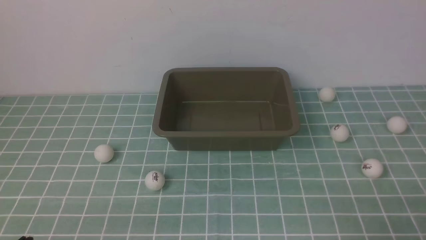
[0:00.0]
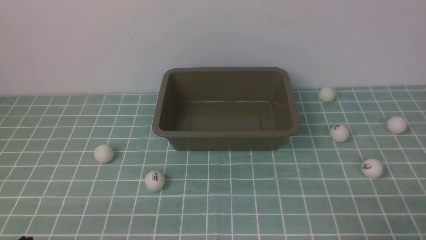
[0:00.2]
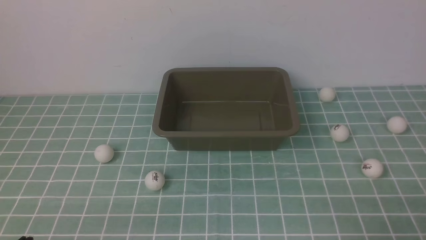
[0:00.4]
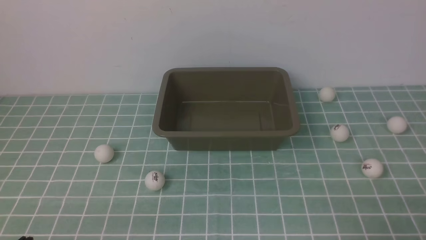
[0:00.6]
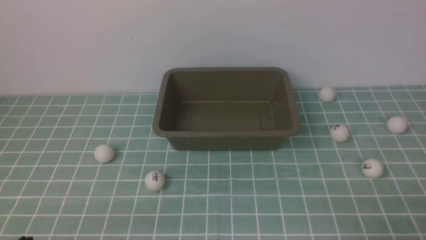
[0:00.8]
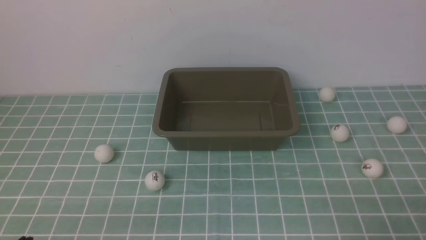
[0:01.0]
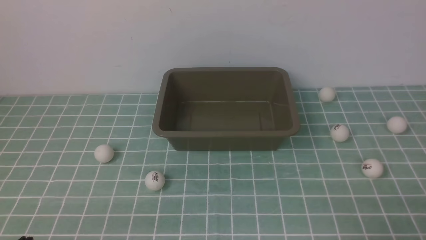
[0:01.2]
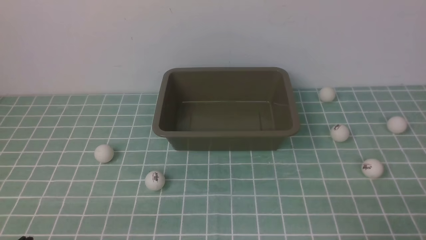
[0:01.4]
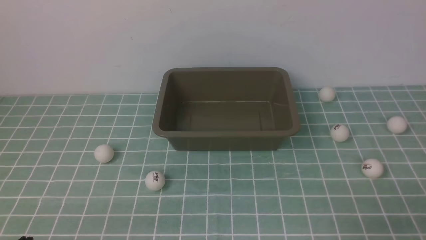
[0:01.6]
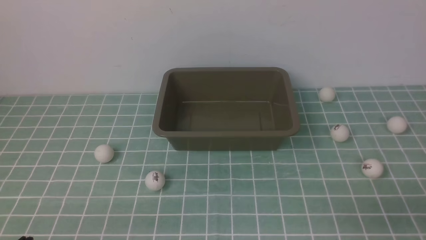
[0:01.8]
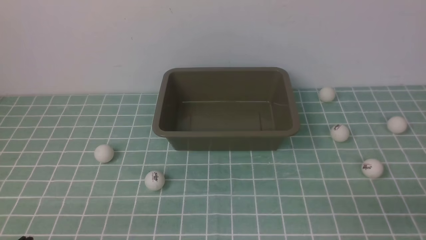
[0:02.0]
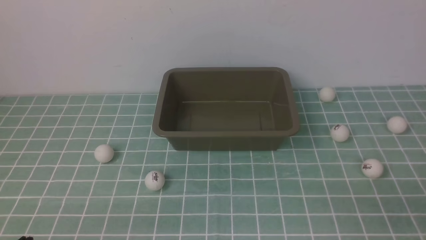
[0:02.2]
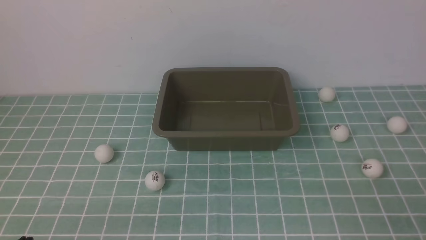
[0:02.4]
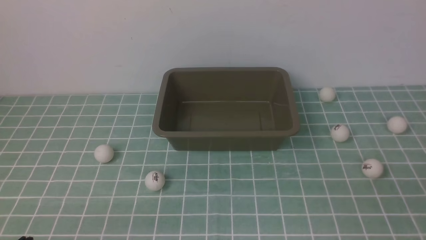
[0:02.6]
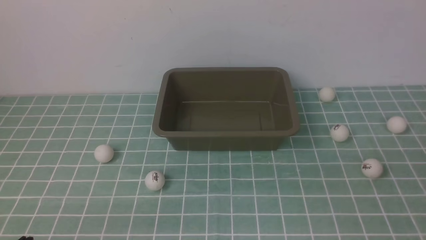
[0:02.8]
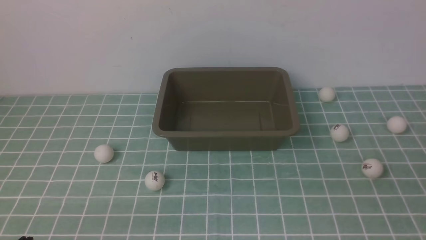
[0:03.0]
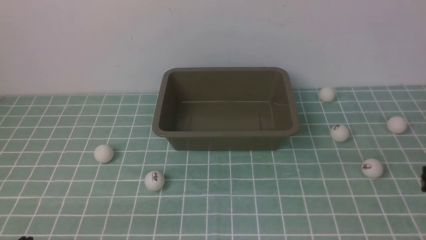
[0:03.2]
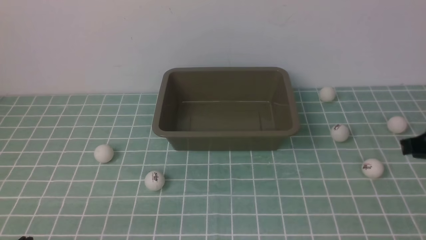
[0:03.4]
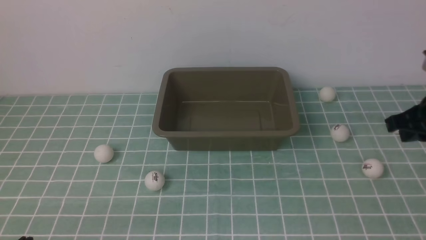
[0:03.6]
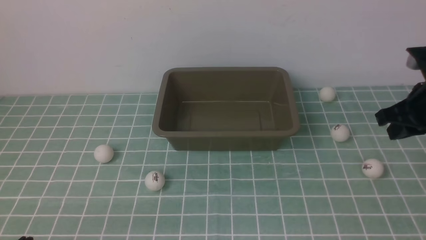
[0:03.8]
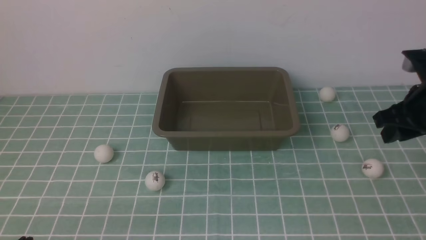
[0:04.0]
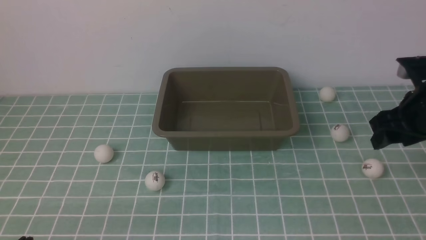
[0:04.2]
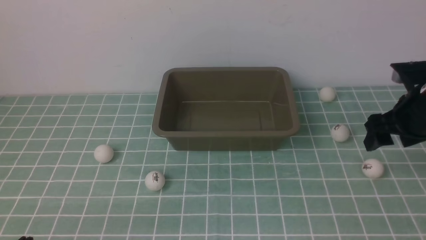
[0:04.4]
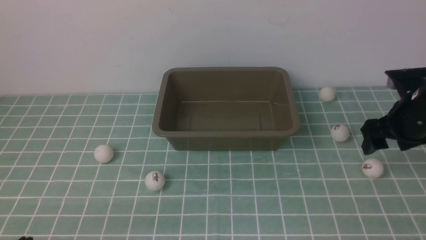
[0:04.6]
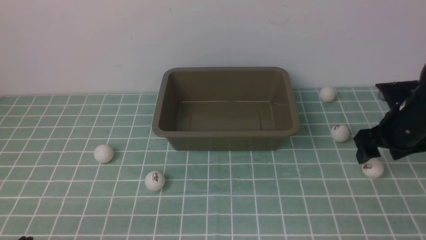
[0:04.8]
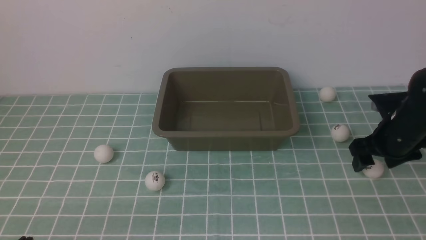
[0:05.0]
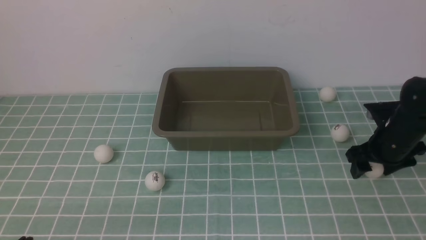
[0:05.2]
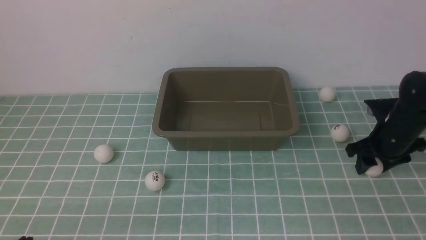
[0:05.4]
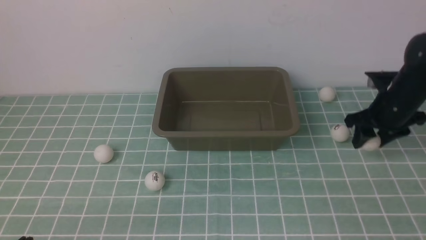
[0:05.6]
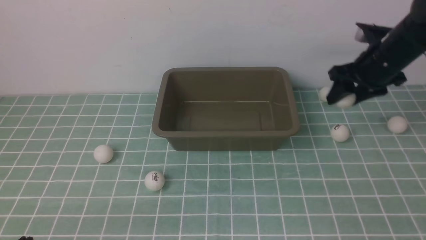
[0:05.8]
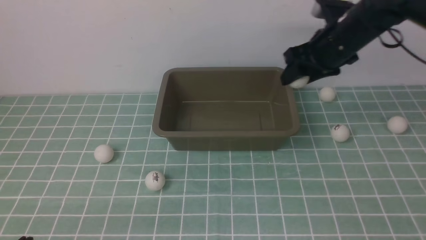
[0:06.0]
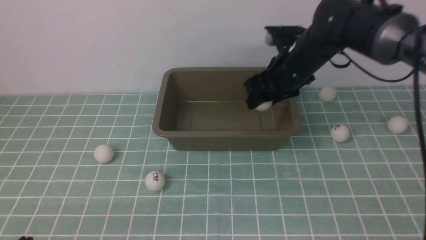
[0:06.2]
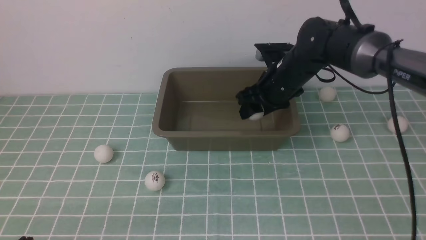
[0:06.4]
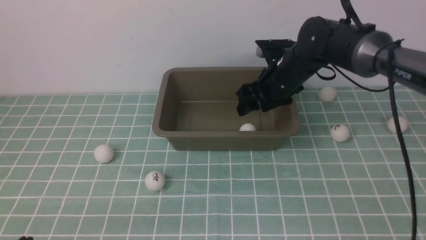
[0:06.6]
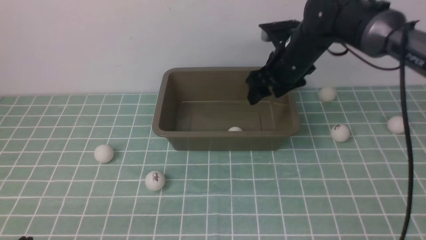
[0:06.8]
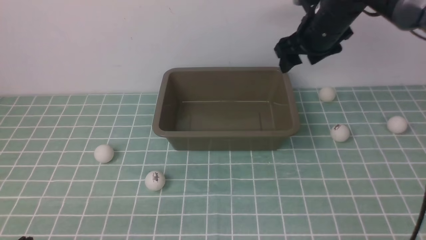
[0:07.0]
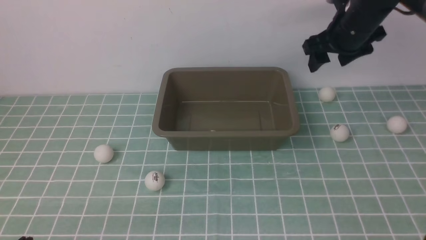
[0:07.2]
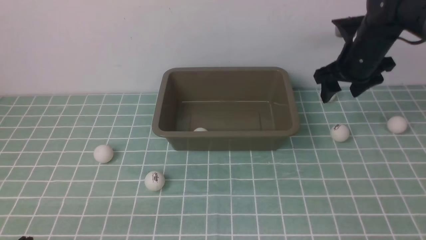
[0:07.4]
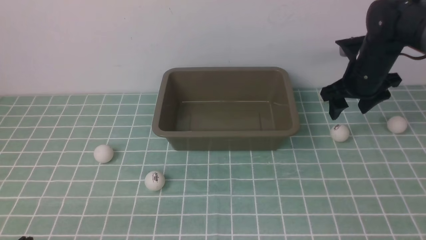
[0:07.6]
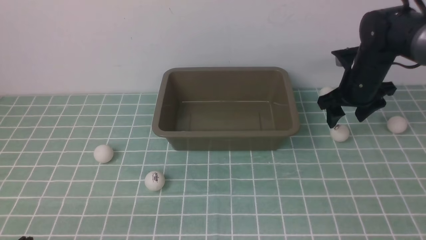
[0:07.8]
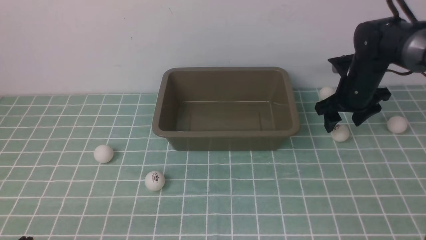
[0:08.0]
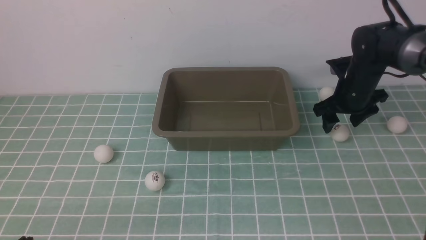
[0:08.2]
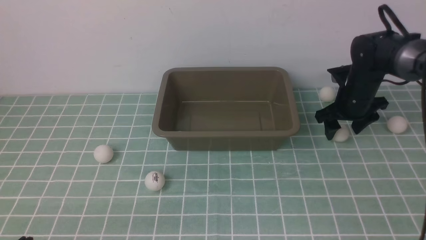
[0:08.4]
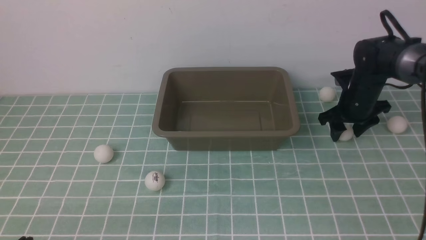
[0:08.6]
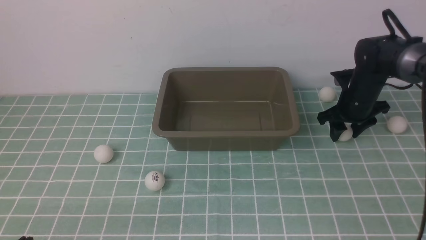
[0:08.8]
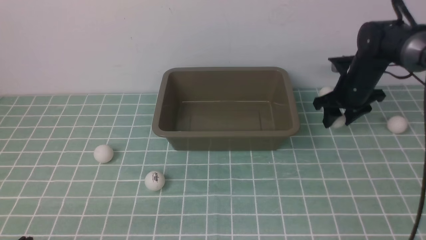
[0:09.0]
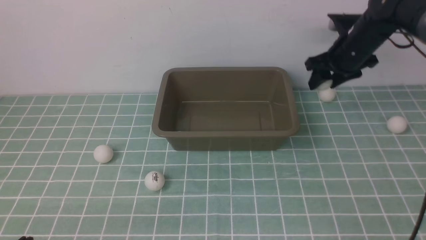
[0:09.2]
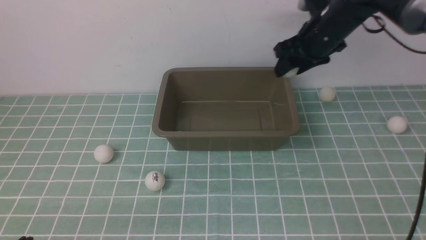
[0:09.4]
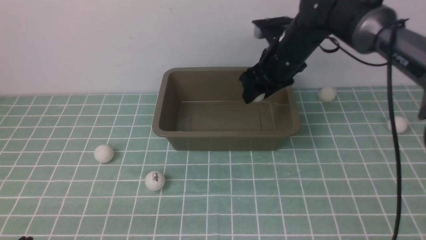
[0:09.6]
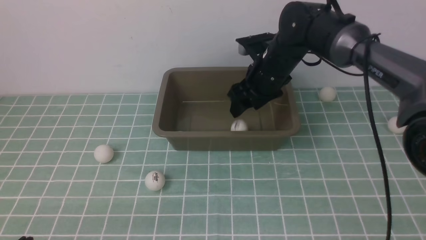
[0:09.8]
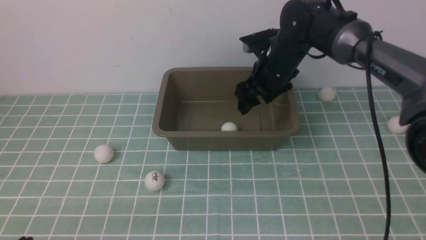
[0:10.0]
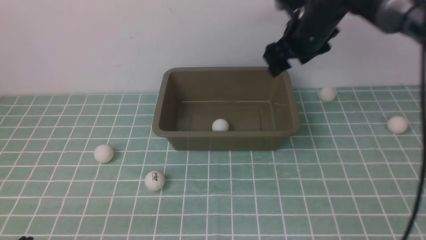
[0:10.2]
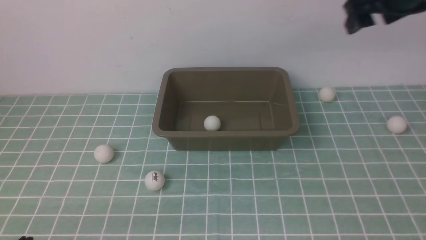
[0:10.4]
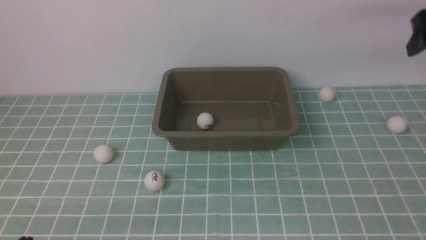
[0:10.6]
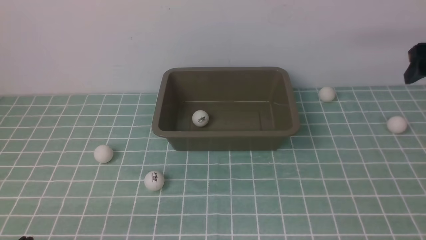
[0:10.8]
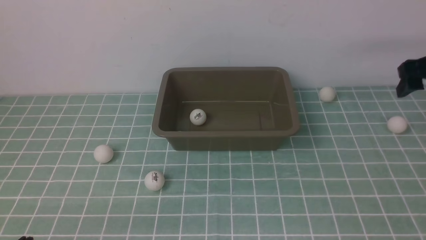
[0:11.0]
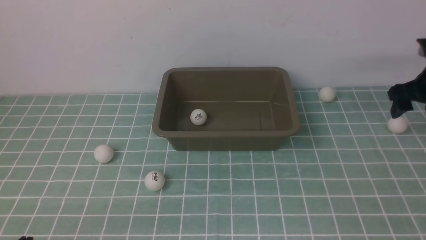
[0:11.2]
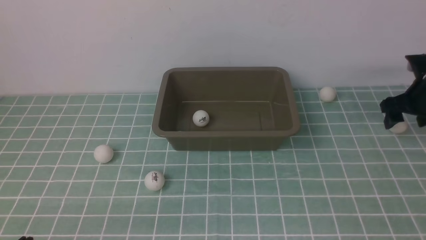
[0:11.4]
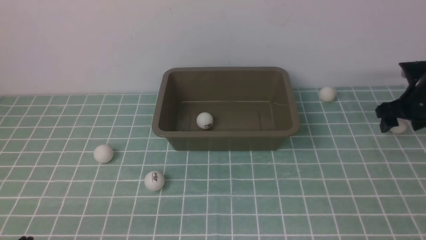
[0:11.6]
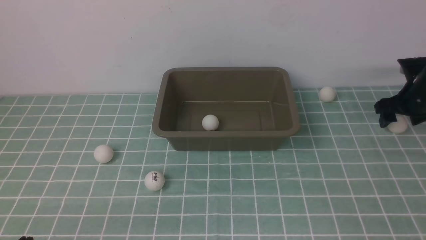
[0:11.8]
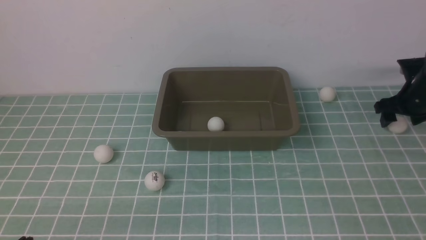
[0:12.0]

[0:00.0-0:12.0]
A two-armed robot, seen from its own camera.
Step, 0:00.0 to 0:05.4: use the right arm to clamp the table tennis ball closest to it.
Step, 0:05.6 to 0:06.6: use the right arm to put the table tennis ball into the box.
Step, 0:06.8 to 0:09.0: use the right arm to clamp the table tennis ball closest to it.
Step, 0:09.2 to 0:10.0: use the right arm to put the table tennis ball into the box.
0:03.0 to 0:04.4: The right gripper moves forward, about 25 cm, and opens its fingers.
0:04.4 to 0:06.0: The right gripper heads to the left and forward, covering some 15 cm, and travels downward and back again, about 10 cm each way.
0:06.0 to 0:07.6: The right gripper shifts by about 5 cm.
0:09.0 to 0:10.4: The right gripper goes approximately 20 cm upward, and opens its fingers.
0:10.4 to 0:12.0: The right gripper moves downward and to the right, approximately 25 cm.

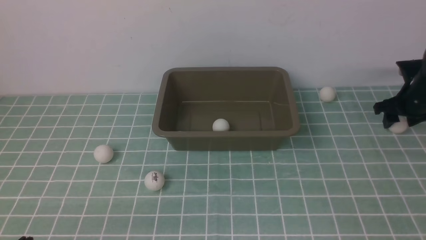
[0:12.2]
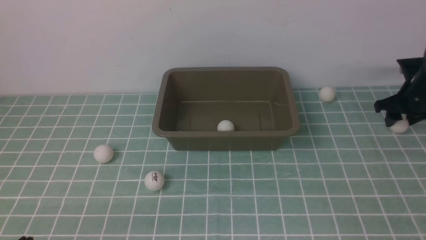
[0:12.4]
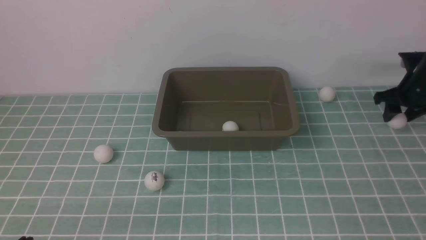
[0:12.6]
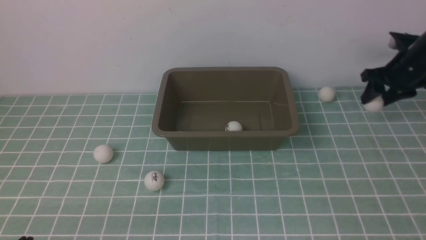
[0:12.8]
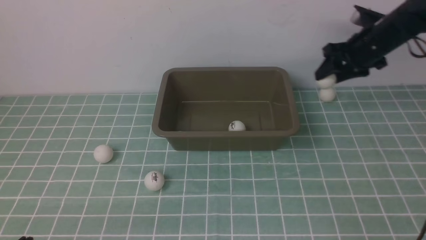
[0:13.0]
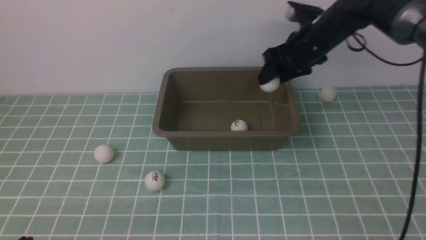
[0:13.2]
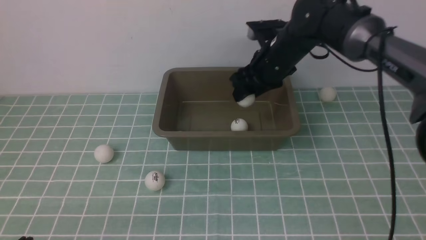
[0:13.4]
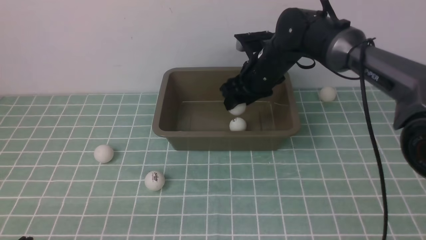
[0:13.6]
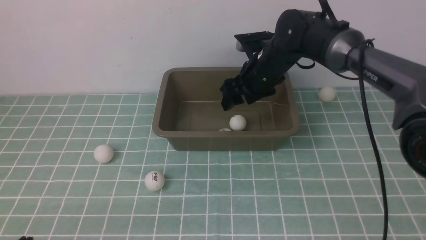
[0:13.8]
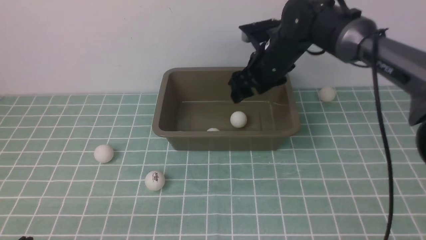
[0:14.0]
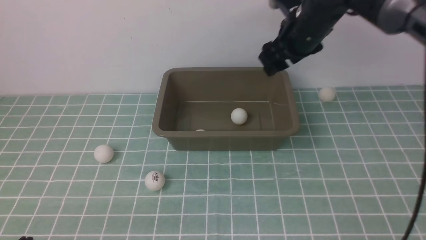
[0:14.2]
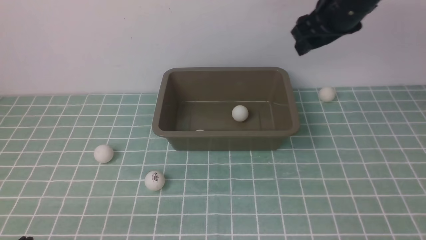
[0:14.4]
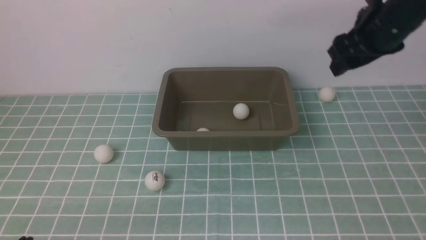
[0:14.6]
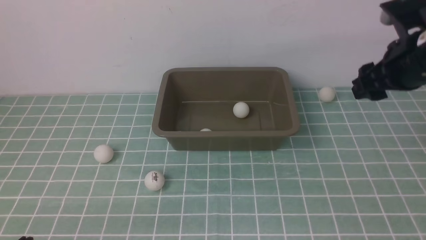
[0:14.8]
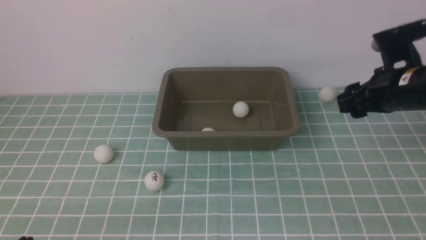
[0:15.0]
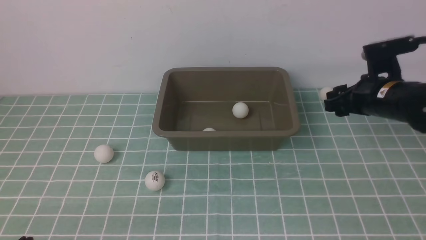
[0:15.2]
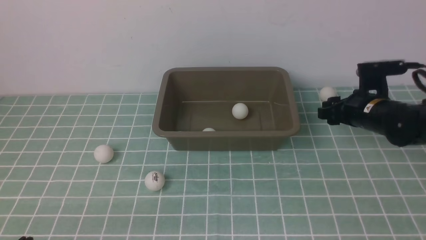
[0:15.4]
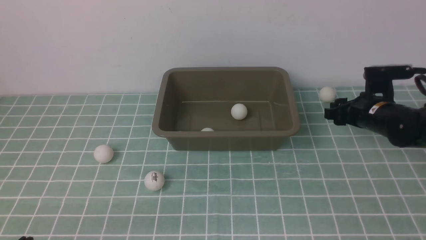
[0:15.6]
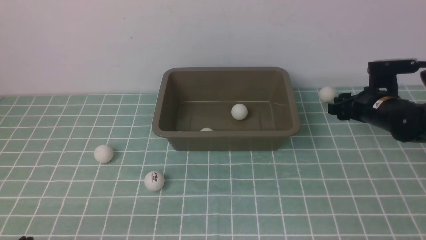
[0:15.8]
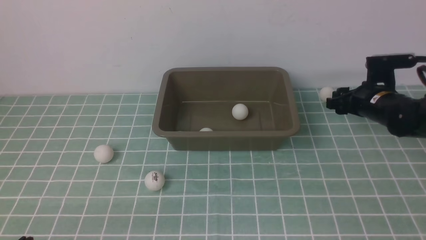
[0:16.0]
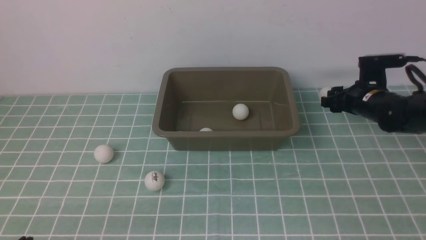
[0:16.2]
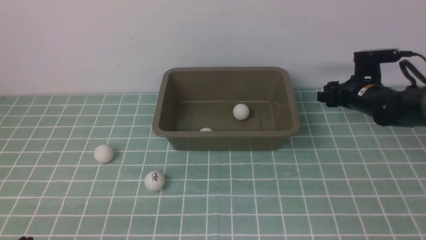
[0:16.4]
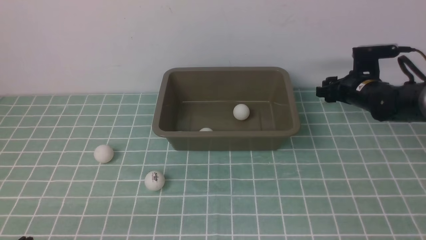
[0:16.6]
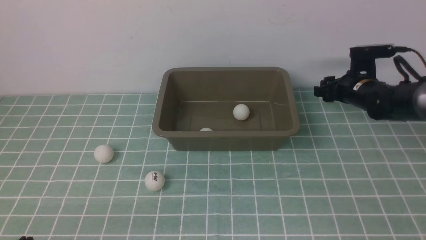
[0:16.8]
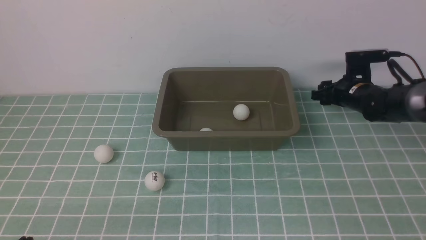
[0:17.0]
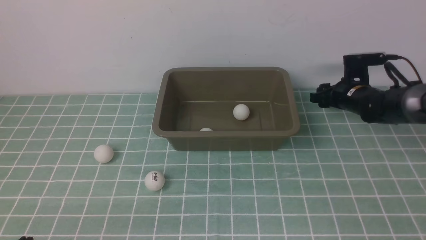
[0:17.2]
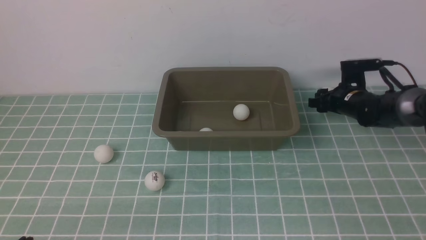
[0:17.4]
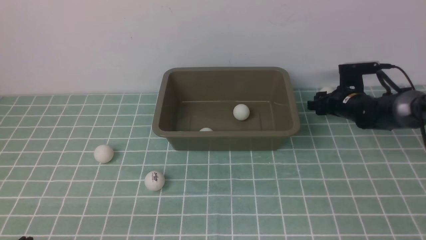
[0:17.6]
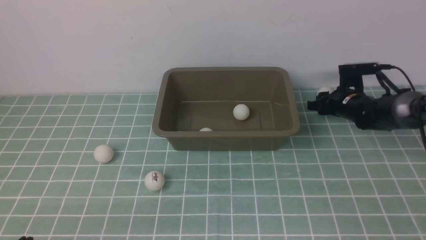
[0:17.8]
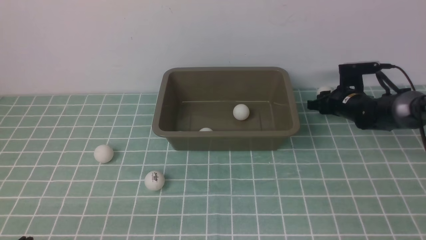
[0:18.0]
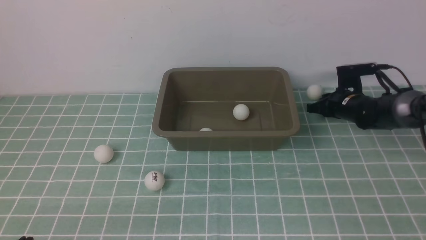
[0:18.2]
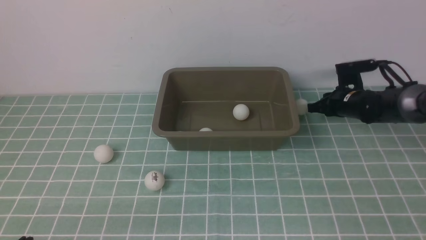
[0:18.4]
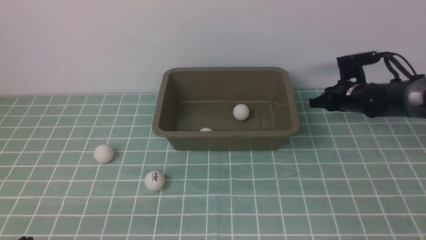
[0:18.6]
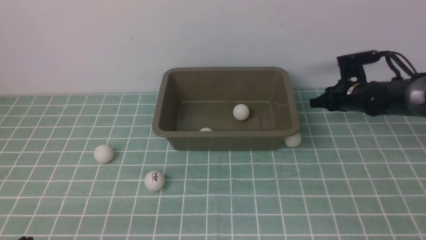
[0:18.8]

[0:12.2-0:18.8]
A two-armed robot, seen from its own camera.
Step, 0:13.0 to 0:13.8: use the right arm to put the table tennis ball into the box.
0:12.2 to 0:13.8: The right gripper shifts some 30 cm to the left.
0:13.8 to 0:15.4: The right gripper shifts about 20 cm to the right.
0:15.4 to 0:17.2: The right gripper heads forward and downward, covering some 10 cm.
0:17.2 to 0:18.8: The right gripper closes its fingers.
